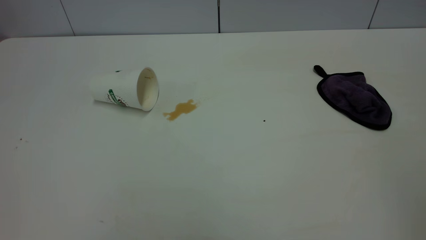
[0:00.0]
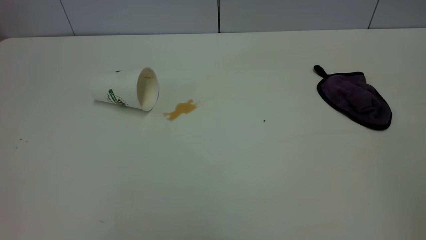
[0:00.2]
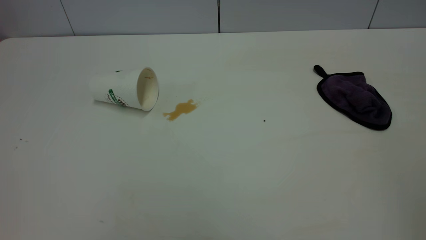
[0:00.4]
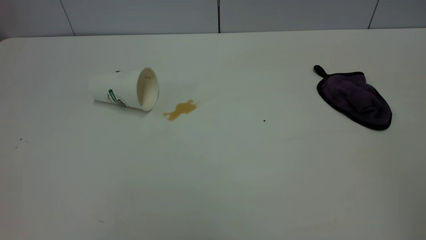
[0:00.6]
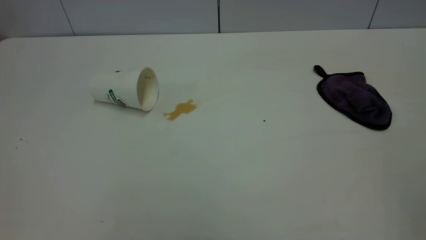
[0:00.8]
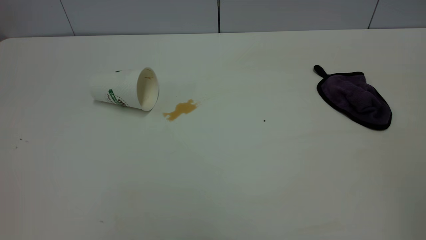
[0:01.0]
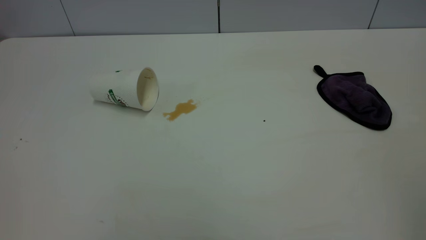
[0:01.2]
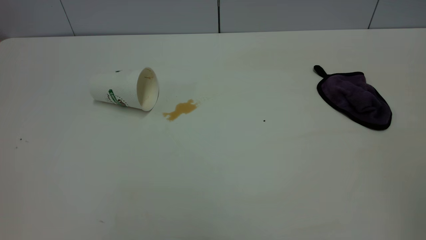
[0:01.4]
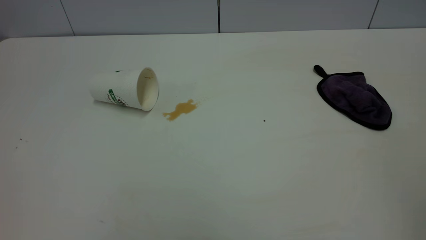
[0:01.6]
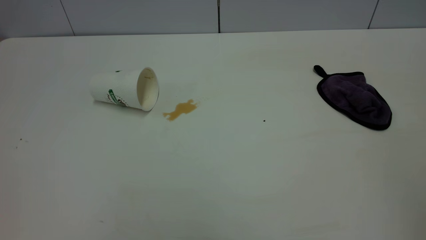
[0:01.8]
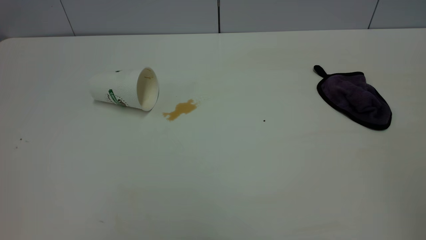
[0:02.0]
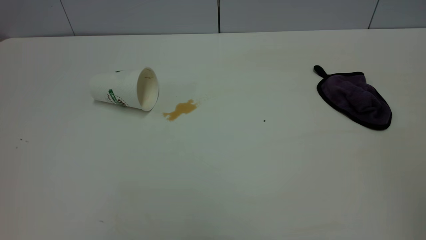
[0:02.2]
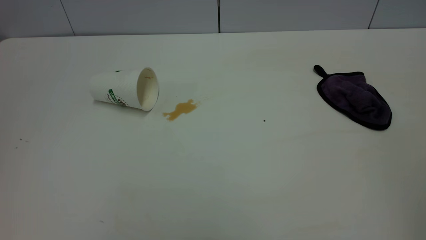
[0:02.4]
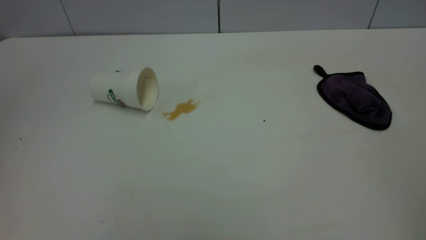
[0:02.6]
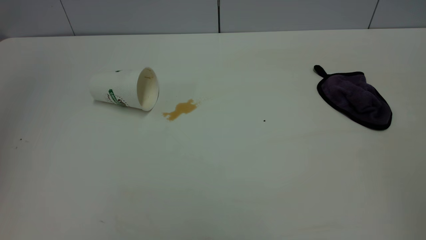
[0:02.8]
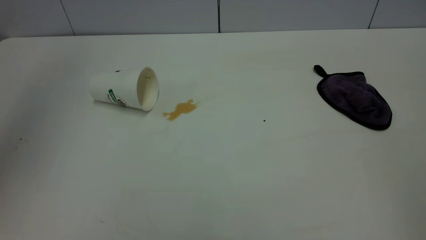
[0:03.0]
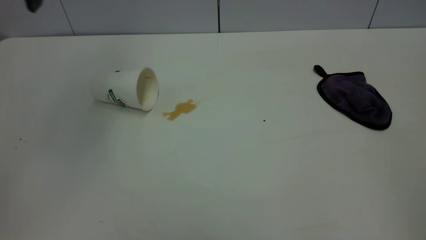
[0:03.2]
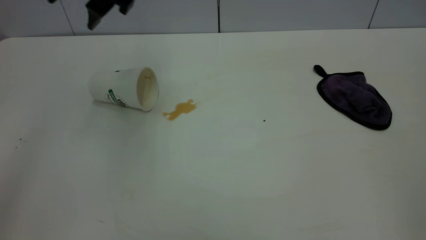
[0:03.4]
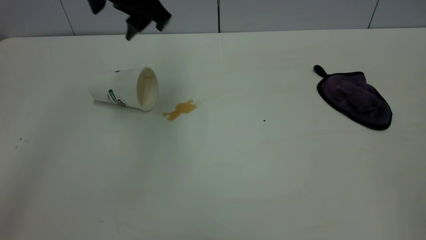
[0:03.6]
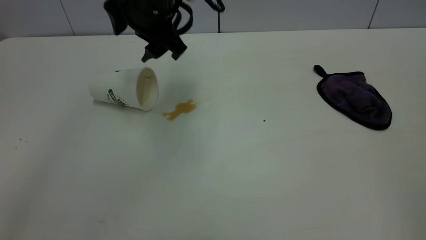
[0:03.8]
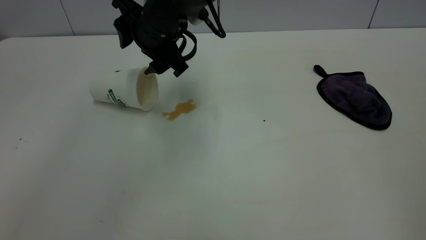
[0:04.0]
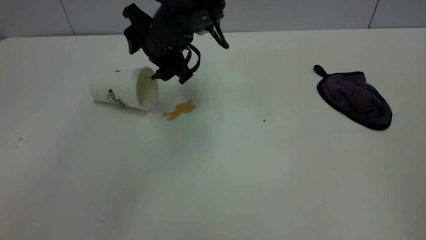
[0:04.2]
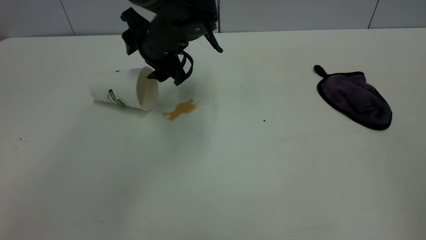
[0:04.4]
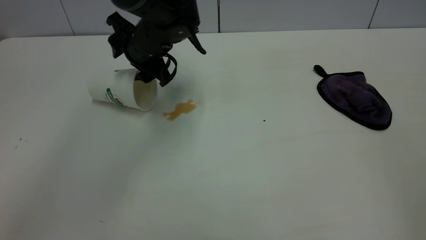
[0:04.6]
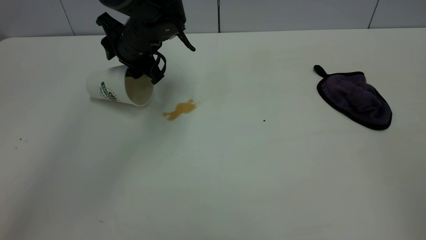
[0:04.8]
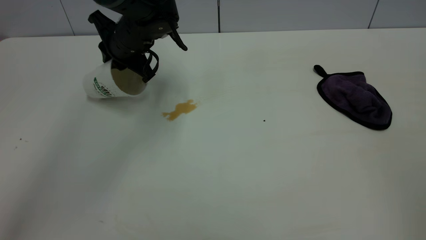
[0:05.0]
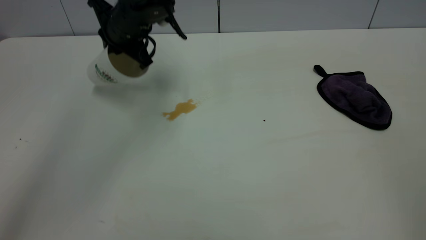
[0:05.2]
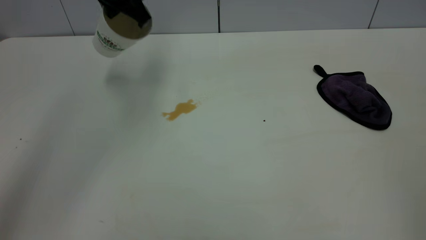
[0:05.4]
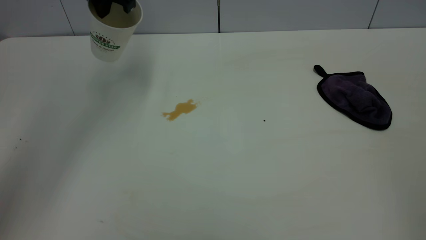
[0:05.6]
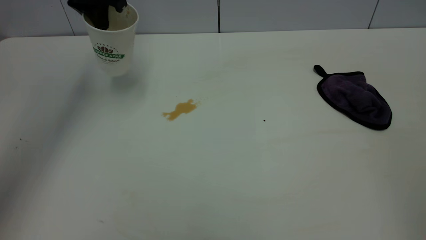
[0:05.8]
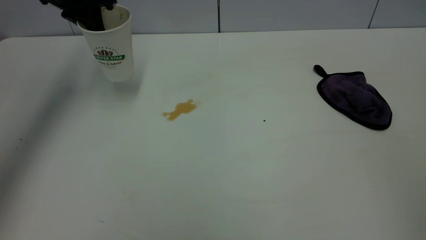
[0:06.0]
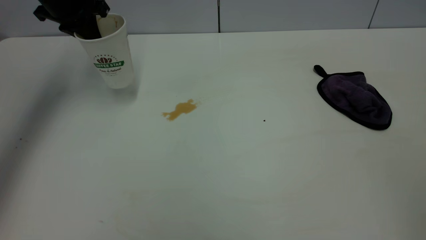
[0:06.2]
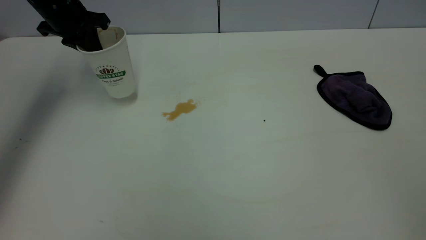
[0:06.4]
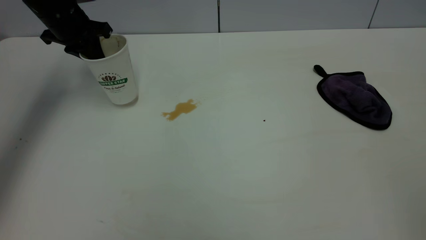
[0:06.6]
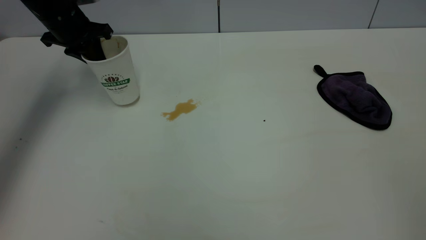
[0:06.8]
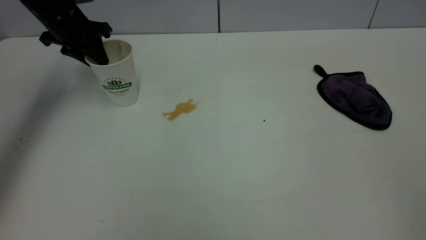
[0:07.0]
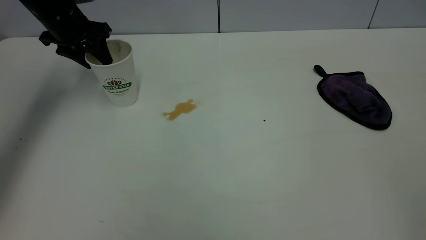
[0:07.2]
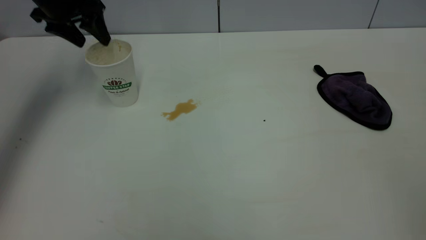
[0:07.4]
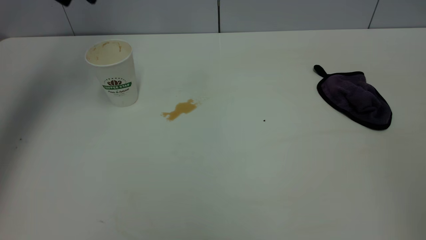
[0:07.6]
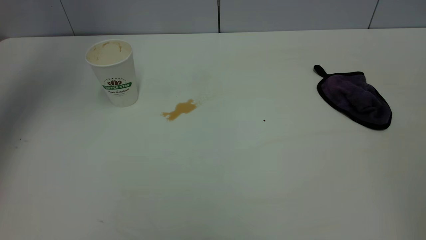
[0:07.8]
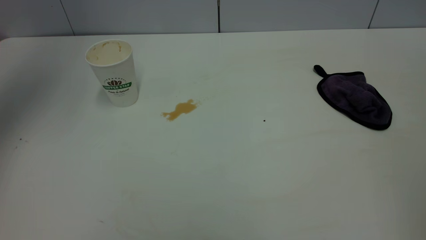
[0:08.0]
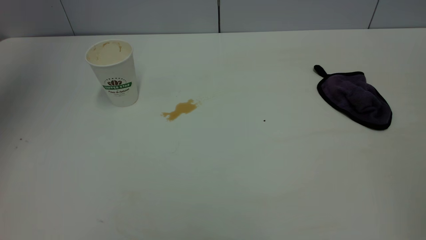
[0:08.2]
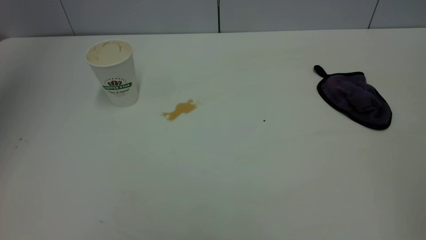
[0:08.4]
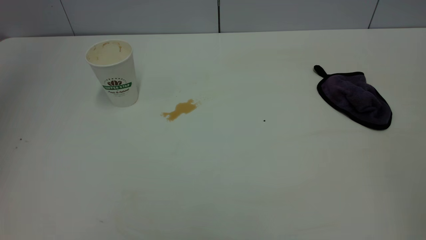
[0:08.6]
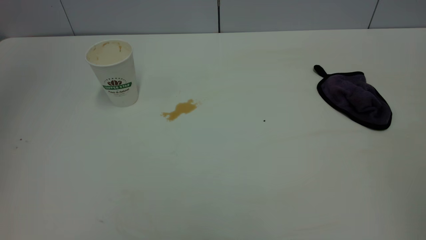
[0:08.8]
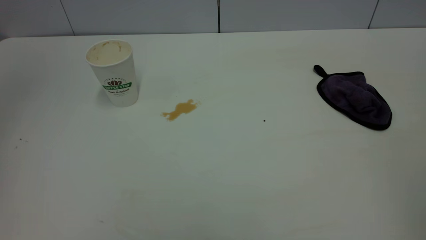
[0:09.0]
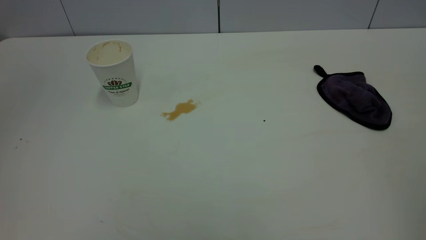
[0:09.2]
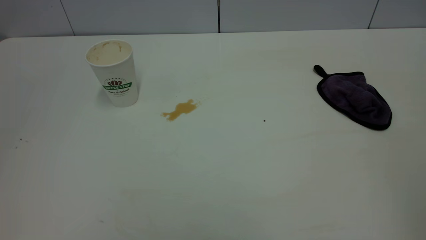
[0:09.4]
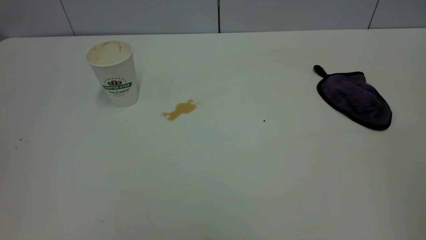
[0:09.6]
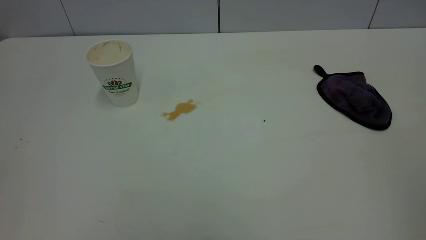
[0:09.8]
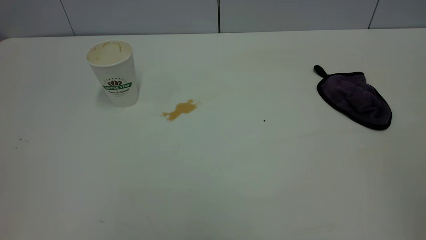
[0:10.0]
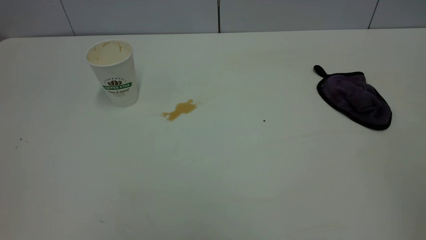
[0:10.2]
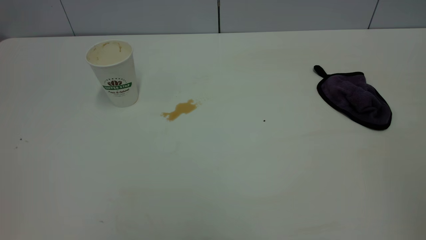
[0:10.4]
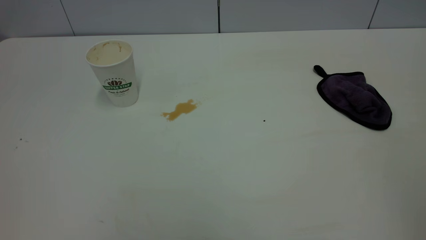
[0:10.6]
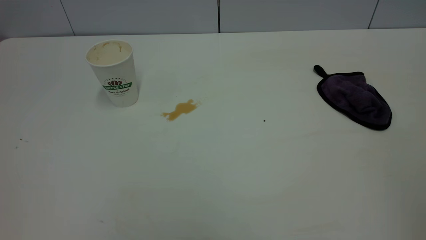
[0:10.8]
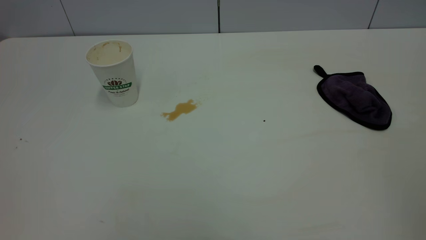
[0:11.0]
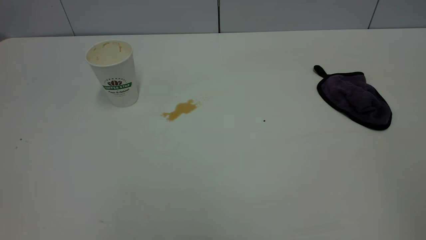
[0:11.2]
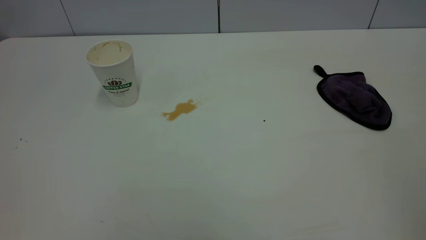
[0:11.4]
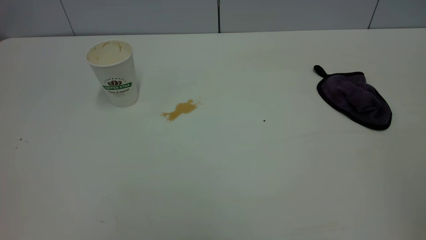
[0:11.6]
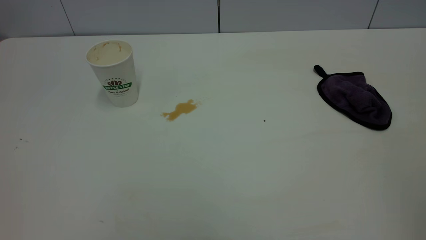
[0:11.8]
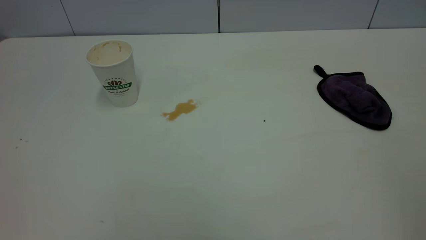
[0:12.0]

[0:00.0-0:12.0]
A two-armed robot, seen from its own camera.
Task of the whole recording: the left gripper pick up the fallen cup and place it upright, the right gripper grasp the purple rag and wipe the tea stain on the table, the right gripper put the purple rag back in its original position.
Step, 0:00.0 to 0:07.4: Stand the paper cup upright.
0:00.0 to 0:01.6: The two grippers keep their place.
0:01.6 to 0:03.0: The left gripper travels forward by about 30 cm.
0:03.0 to 0:04.4: The left gripper goes roughly 30 cm downward, to the right and forward.
0:04.4 to 0:06.0: The left gripper heads to the left and upward, covering about 20 cm, and closes.
0:06.0 to 0:07.6: The left gripper moves upward, some 10 cm, and opens up.
0:07.6 to 0:09.0: The left gripper goes approximately 35 cm backward and upward.
0:10.4 to 0:12.0: Both grippers stay put.

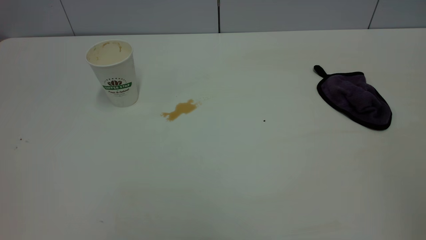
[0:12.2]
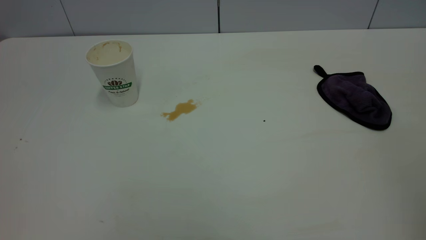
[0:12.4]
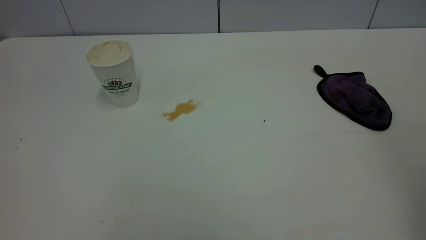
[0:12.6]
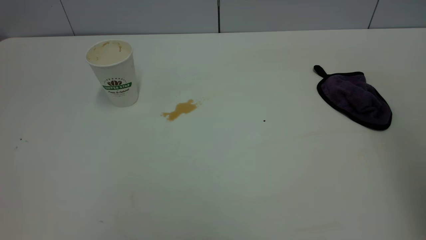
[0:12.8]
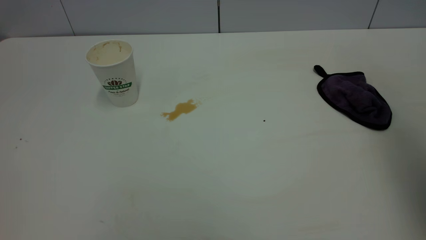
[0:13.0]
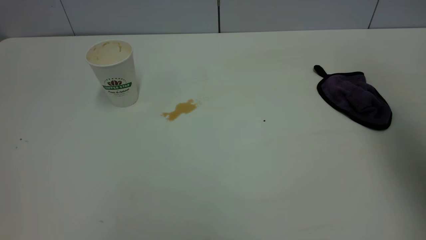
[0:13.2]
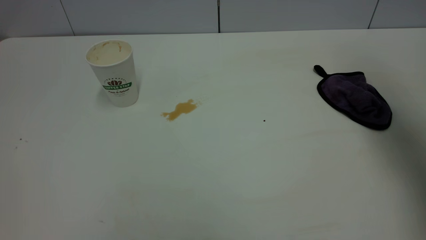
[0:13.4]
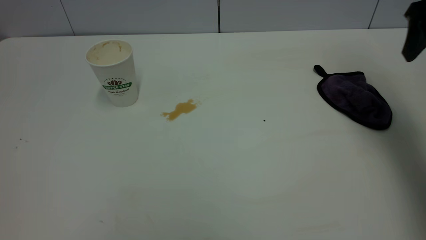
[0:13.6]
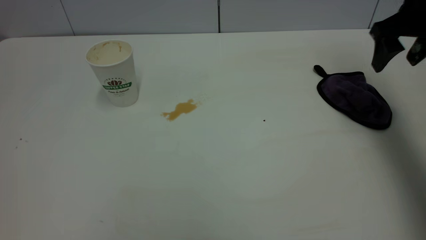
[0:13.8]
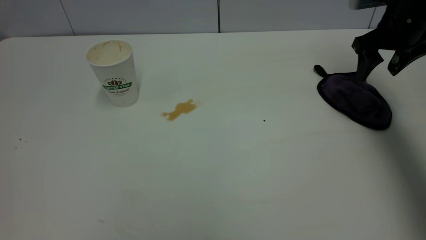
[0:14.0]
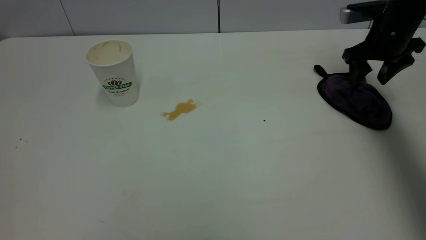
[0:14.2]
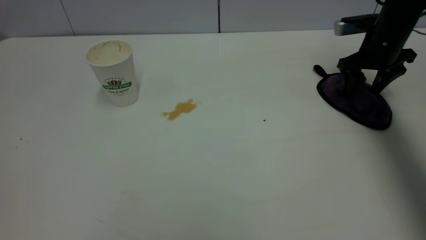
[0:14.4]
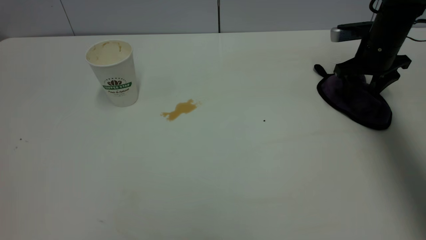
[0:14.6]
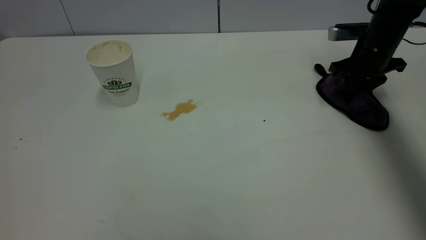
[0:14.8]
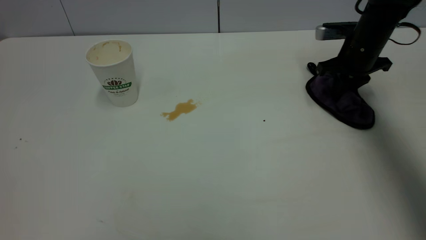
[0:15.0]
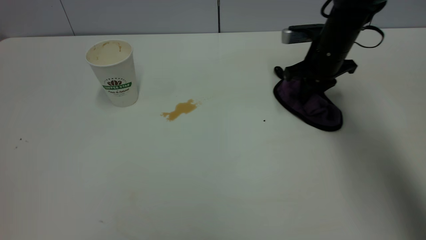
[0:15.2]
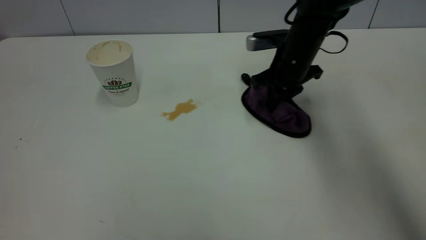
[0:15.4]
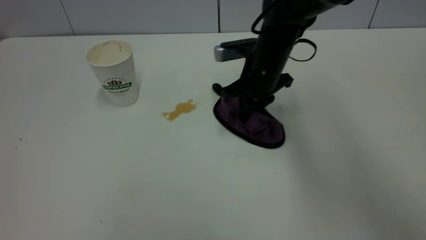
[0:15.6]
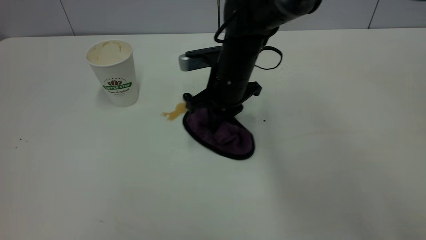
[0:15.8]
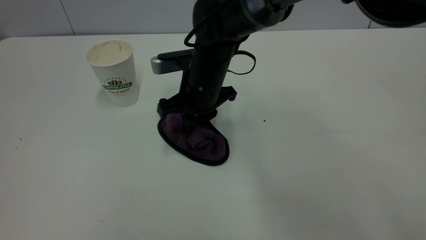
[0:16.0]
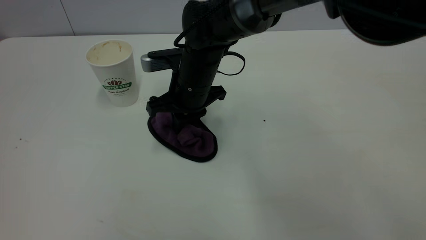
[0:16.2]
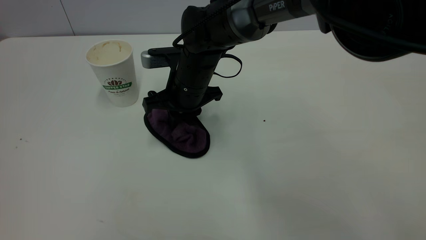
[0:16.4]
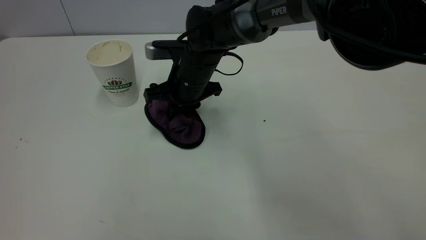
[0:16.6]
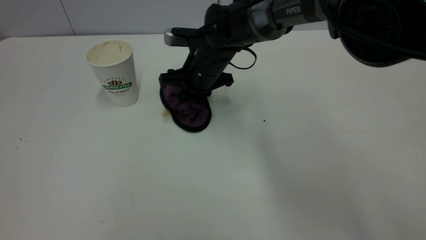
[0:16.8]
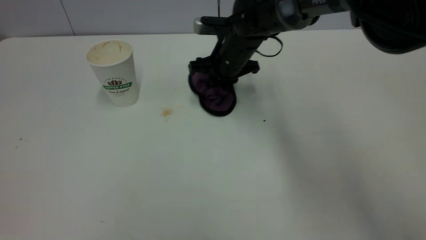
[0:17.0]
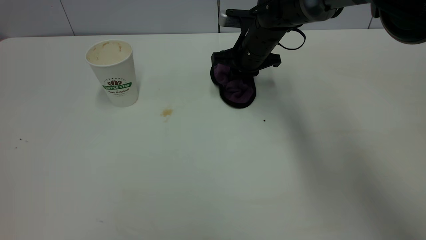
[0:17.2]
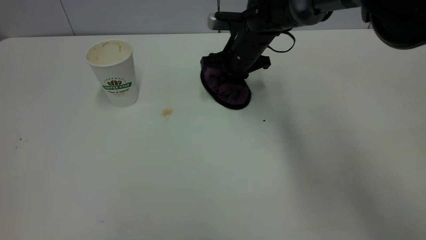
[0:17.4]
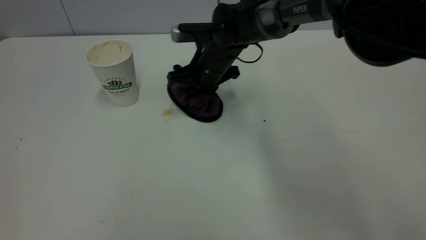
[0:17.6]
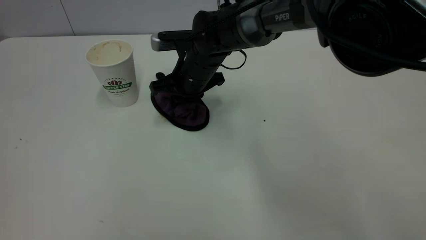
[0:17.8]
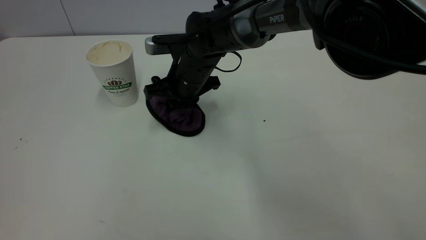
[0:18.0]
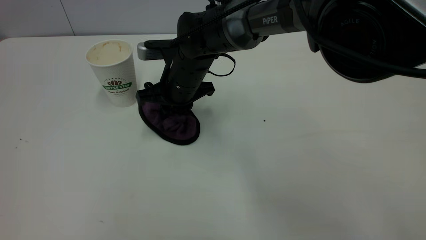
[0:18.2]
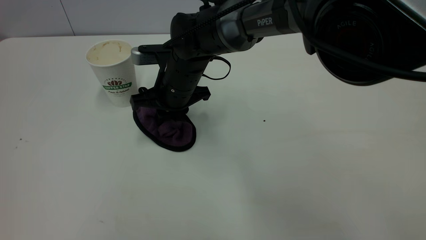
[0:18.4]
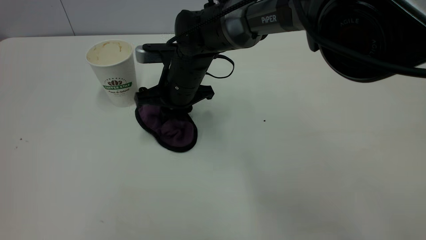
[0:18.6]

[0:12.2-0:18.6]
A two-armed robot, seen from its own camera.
Task of the whole recording: the left gripper pick up the fallen cup and place it upright, the right gripper grasp the purple rag and wipe the tea stain on the table, the right gripper put the purple rag back in its original position.
0:12.2 to 0:13.8: The right gripper heads forward, covering some 40 cm, and opens.
0:13.8 to 0:15.4: The right gripper moves to the left and downward, approximately 20 cm, and closes up.
0:15.4 to 0:17.0: The right gripper heads to the left, covering some 10 cm.
0:17.0 to 0:18.6: The right gripper heads to the left and backward, covering approximately 10 cm.
